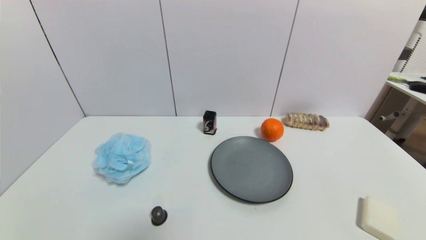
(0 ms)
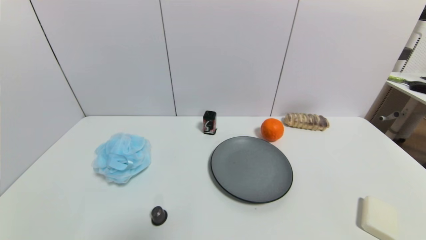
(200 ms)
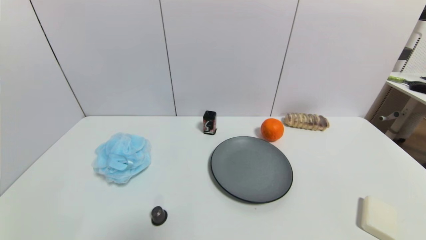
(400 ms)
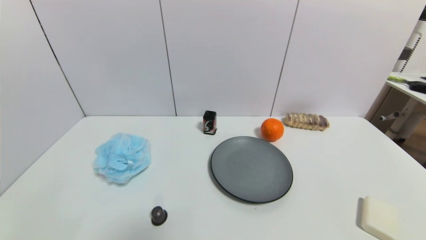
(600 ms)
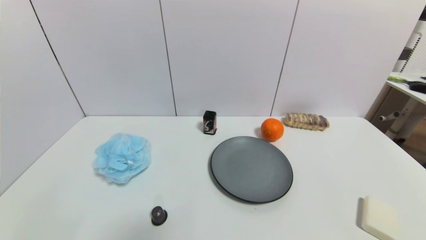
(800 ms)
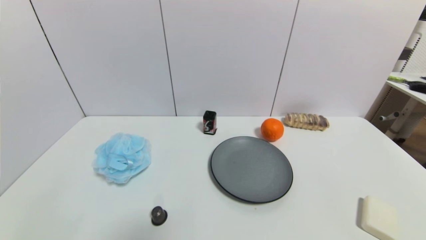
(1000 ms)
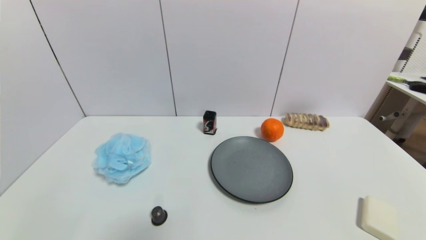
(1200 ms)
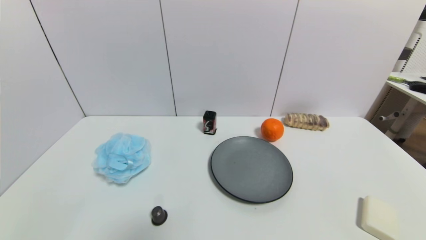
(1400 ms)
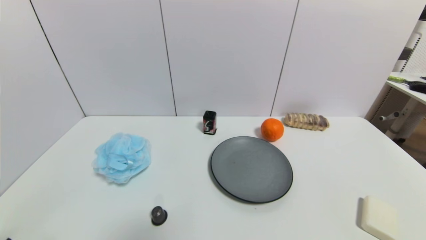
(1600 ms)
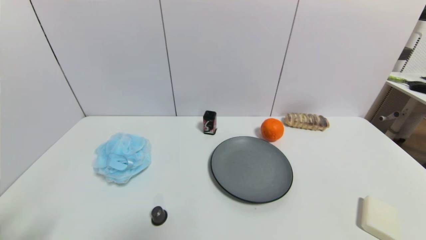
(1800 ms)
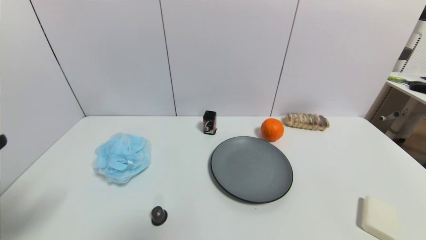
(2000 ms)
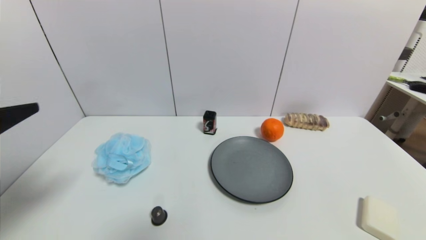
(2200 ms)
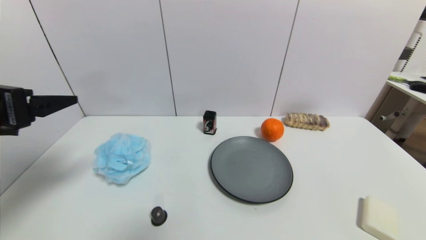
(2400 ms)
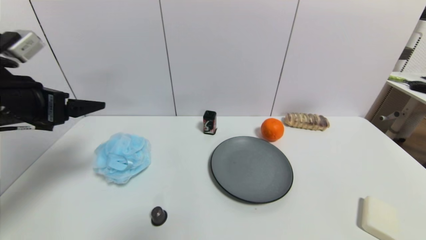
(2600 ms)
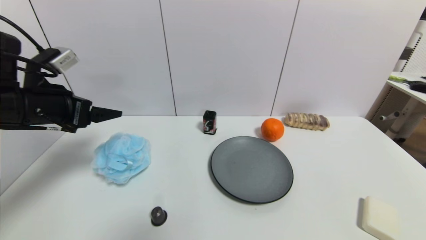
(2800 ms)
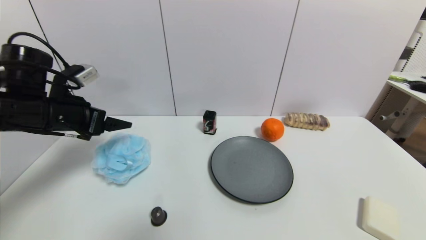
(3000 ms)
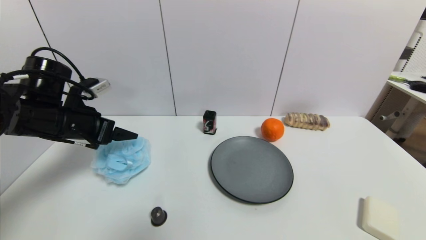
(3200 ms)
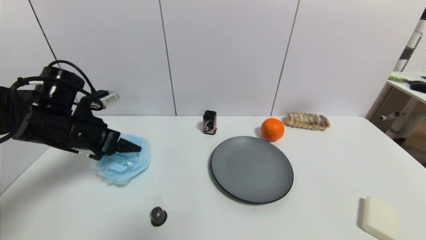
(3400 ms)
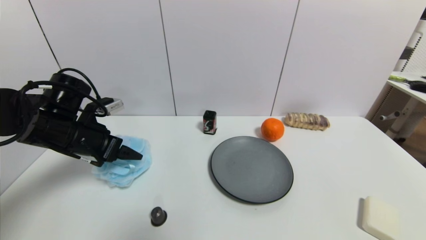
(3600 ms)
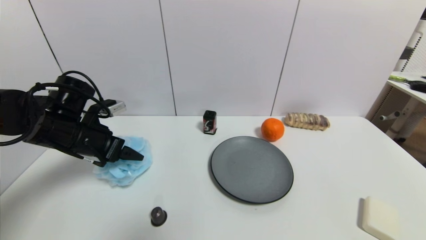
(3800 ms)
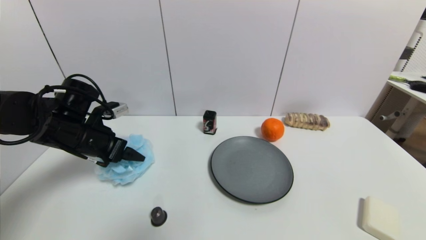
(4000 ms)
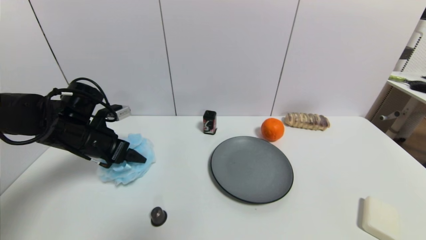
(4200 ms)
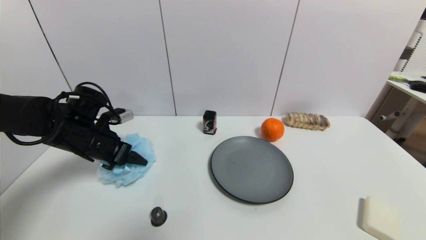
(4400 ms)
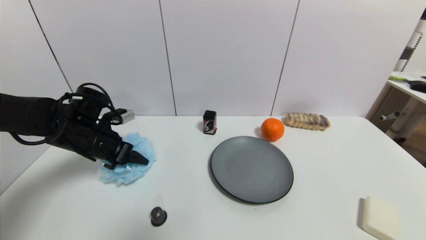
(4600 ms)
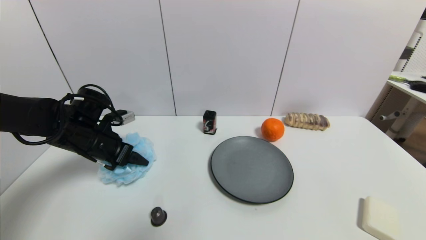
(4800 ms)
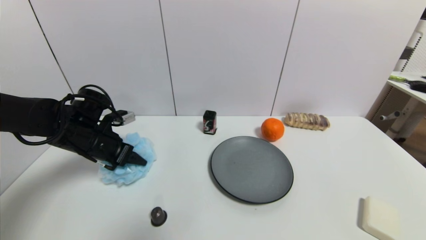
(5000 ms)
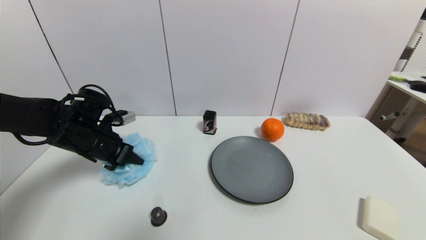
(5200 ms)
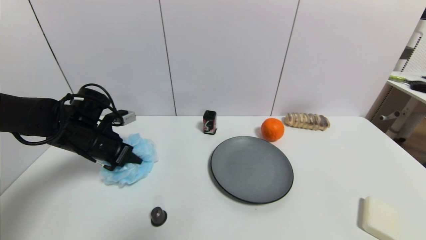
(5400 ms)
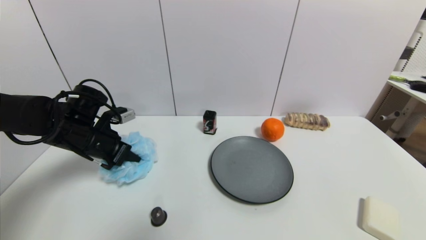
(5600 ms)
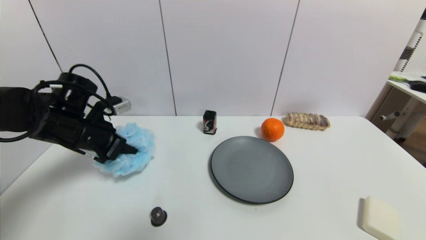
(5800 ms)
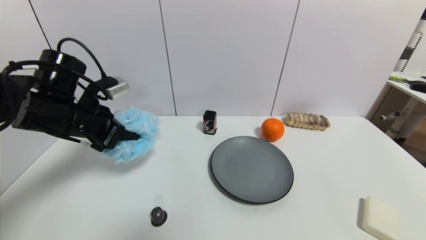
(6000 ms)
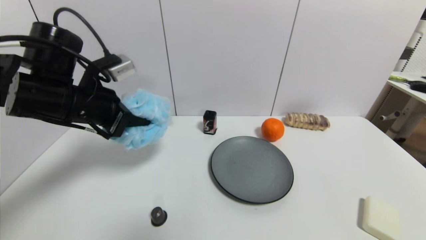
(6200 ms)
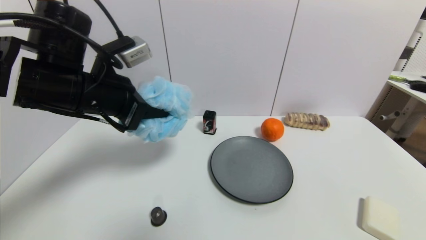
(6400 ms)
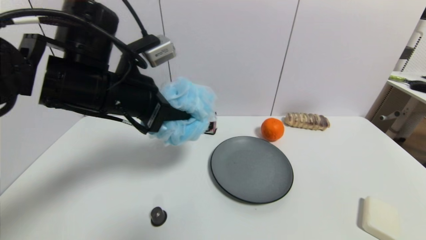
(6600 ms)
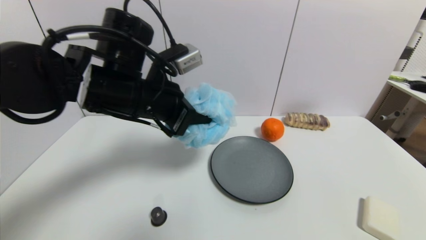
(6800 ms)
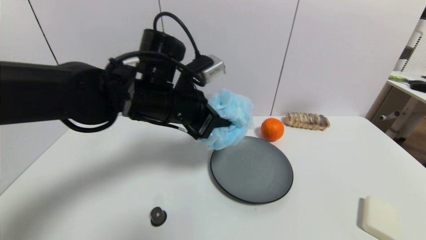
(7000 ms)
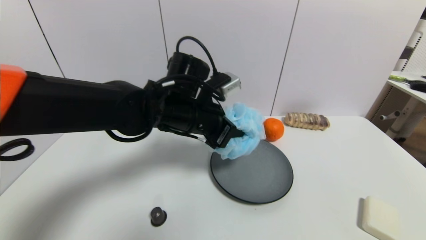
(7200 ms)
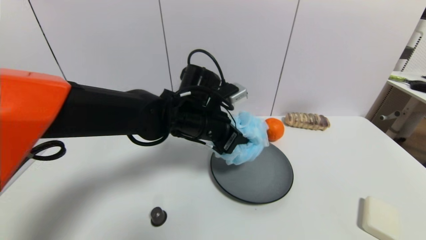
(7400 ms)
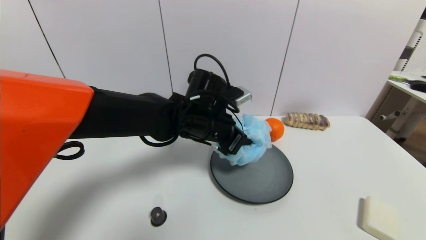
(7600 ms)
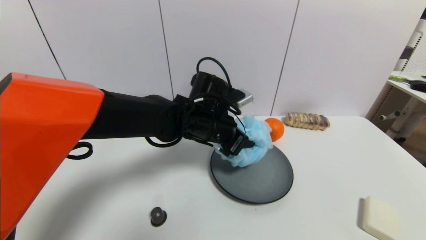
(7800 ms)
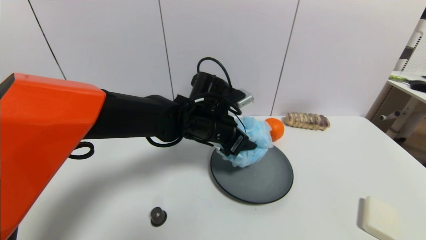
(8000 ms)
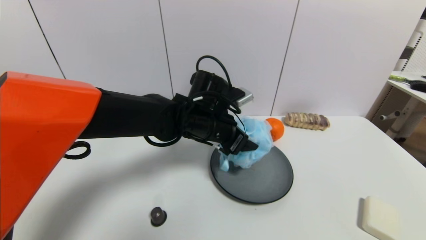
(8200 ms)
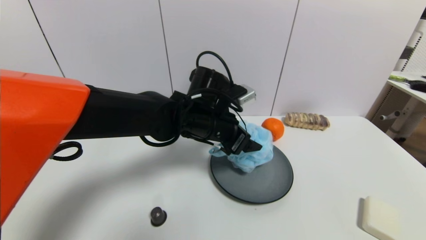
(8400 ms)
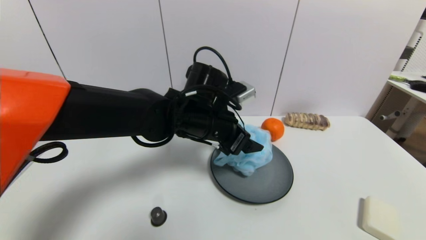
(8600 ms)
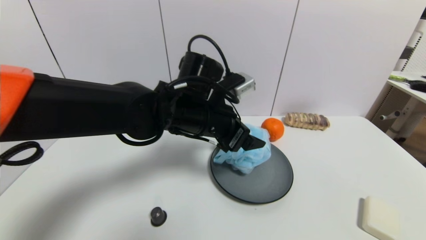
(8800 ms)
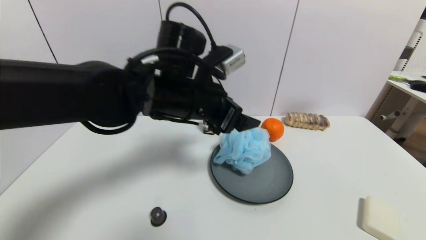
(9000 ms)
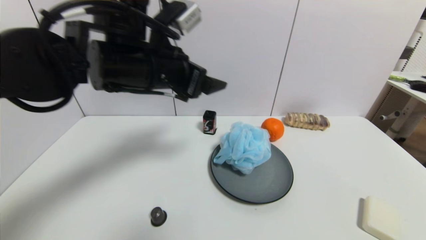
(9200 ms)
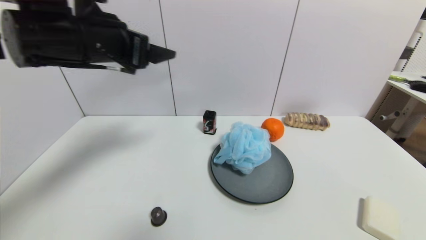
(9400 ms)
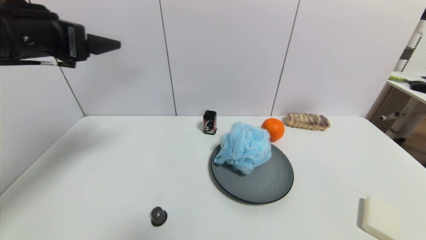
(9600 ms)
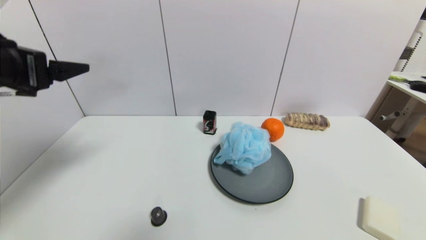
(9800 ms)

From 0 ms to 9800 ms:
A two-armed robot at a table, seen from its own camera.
Task of the whole recording: use a gripper to pick the target object and place on the gray plate.
Step, from 0 ms to 5400 ms: Grasp the shower sphere with the left gripper.
Step, from 5600 ms to 8600 ms: Place the shower sphere on the gray plate with the left gripper.
From 1400 ms to 2800 ms: The left gripper moves forward and upward, some 30 cm.
From 2800 ms to 4200 ms: The left gripper goes approximately 10 cm downward.
From 4200 ms to 5600 ms: The left gripper closes.
From 5600 ms to 7000 ms: The left gripper goes approximately 20 cm to the right and upward.
From 7000 ms to 8400 ms: The left gripper is displaced to the right and downward by some 10 cm, and opens.
From 8400 ms to 9800 ms: The left gripper shifts approximately 30 cm to the left, upward and backward.

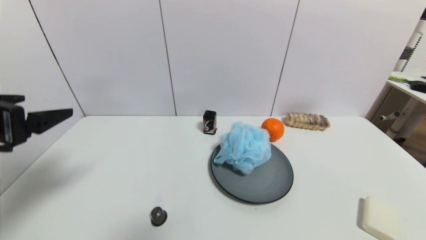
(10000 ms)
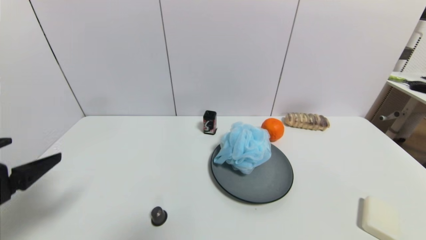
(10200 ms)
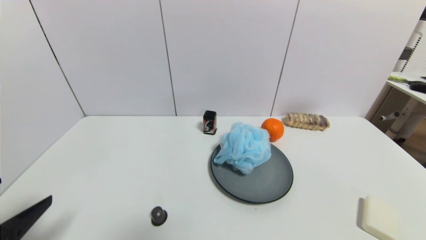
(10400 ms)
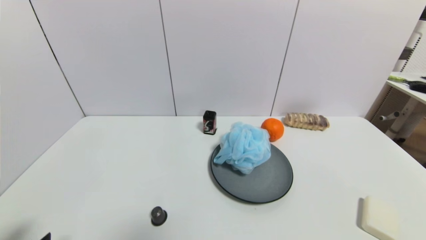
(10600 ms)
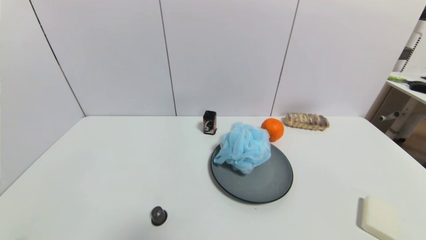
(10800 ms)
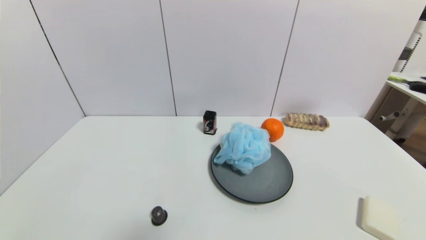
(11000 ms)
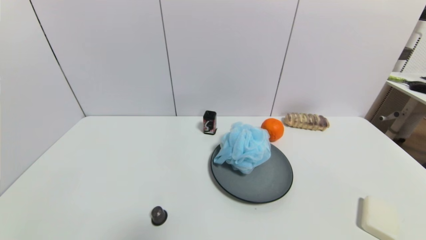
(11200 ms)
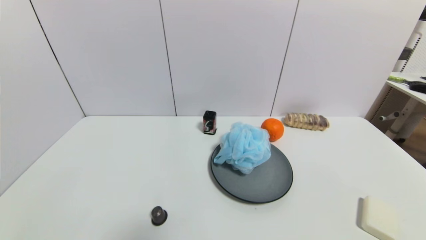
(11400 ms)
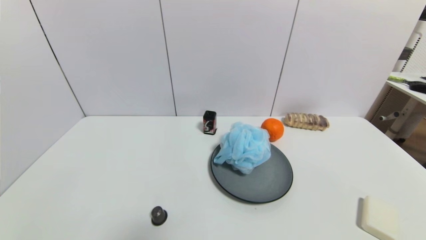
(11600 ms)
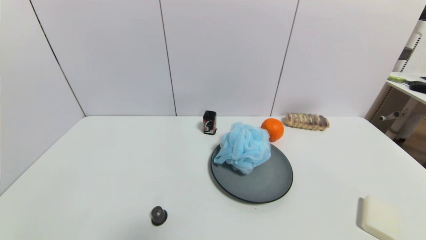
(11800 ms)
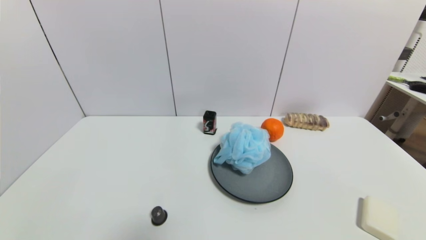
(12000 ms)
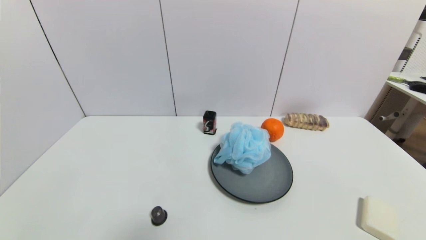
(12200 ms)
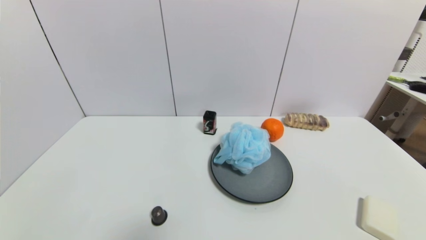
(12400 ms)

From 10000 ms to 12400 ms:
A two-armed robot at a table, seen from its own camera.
Task of the whole recording: use a gripper to pick the target object and place on the gray plate.
From 10000 ms to 11200 ms: The left gripper travels downward and backward by about 25 cm.
From 11200 ms to 12400 ms: Both grippers stay put.
